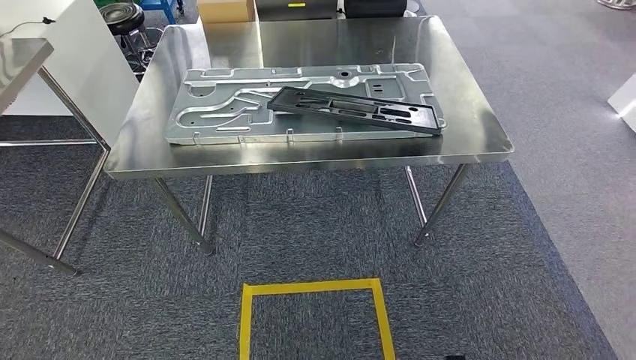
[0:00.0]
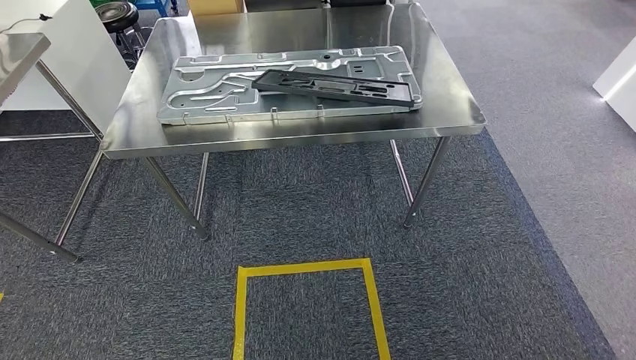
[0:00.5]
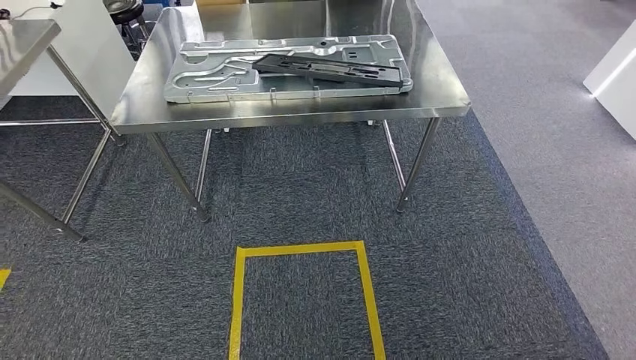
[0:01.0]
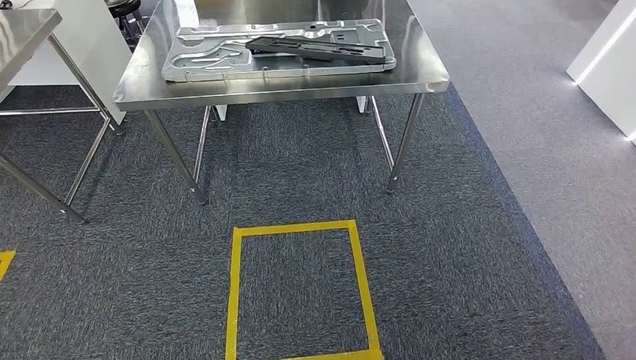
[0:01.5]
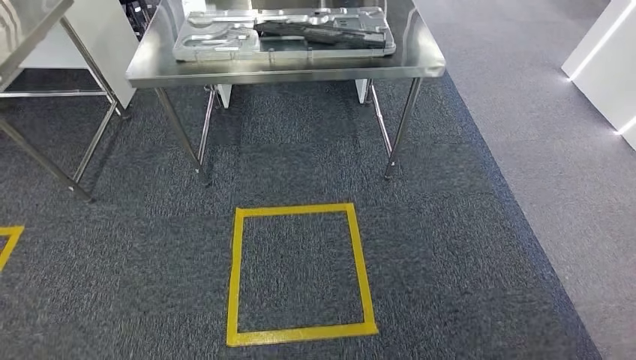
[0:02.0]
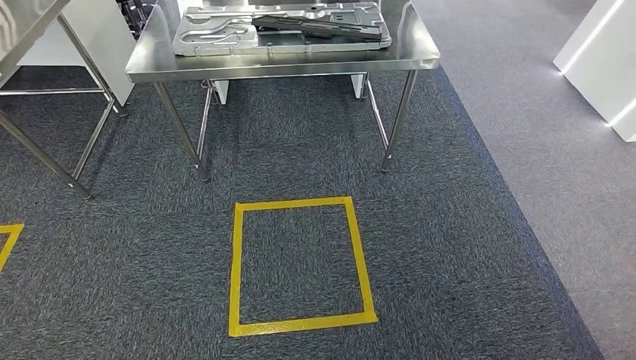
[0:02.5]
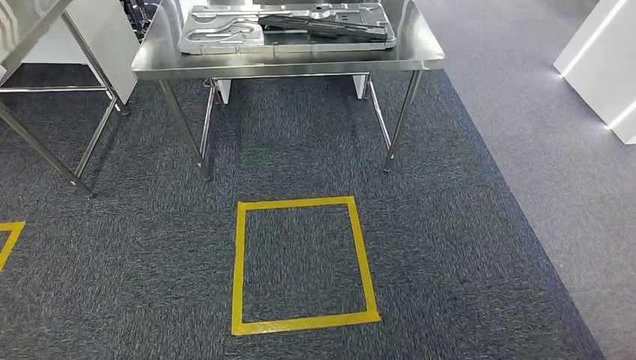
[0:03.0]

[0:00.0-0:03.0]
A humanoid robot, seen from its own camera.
Step, 0:02.0 to 0:03.0: Move to the initial position of the shelf.
0:01.5 to 0:03.0: The hands move only a little.
